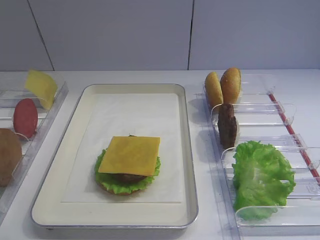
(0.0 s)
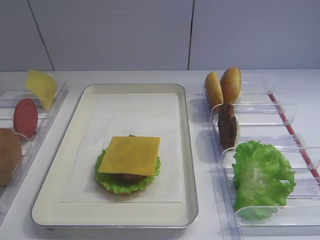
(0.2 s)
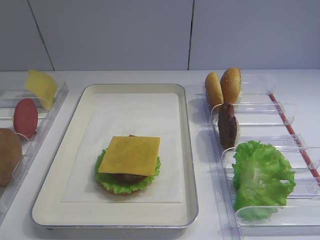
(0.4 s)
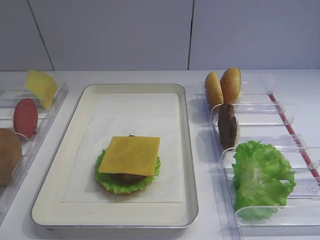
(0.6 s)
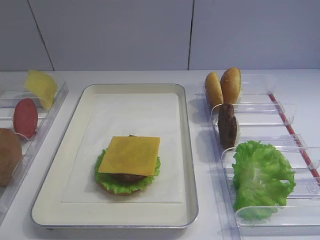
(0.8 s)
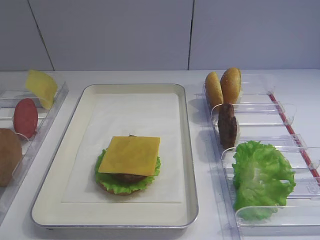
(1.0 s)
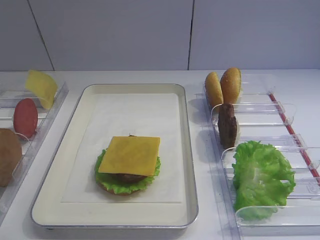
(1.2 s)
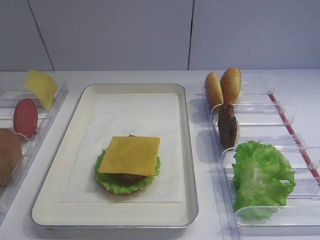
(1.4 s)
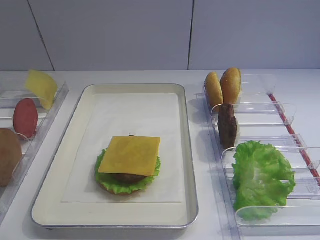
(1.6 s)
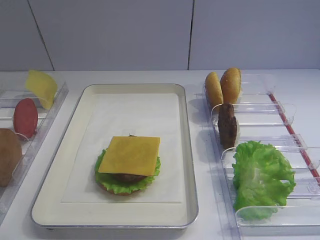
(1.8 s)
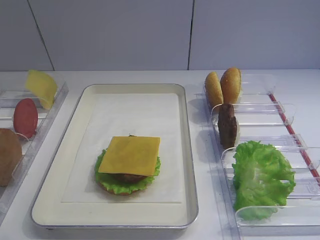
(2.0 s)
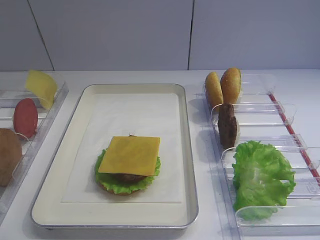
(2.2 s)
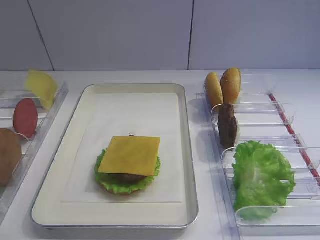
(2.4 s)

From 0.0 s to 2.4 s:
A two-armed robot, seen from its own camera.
From 0.0 s to 2.4 s: Neither gripper changes place.

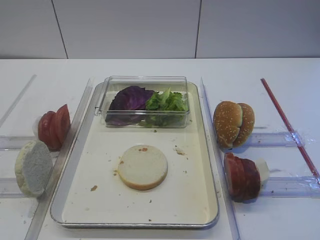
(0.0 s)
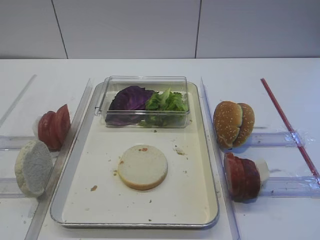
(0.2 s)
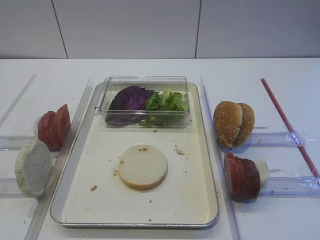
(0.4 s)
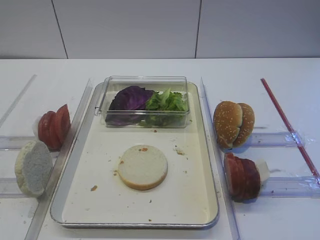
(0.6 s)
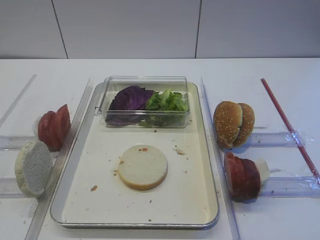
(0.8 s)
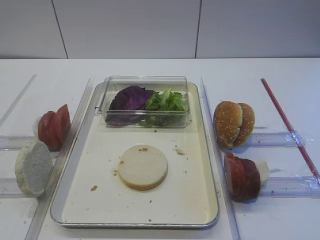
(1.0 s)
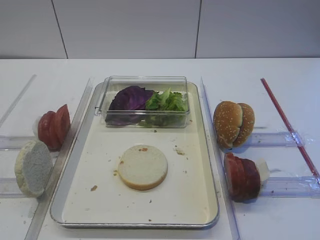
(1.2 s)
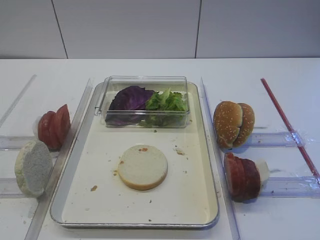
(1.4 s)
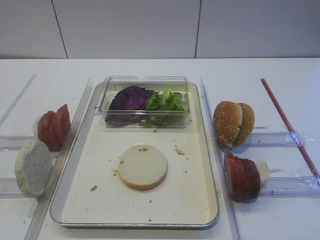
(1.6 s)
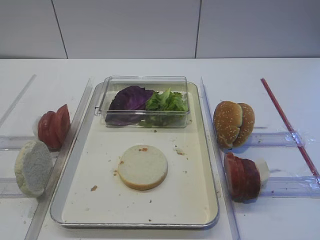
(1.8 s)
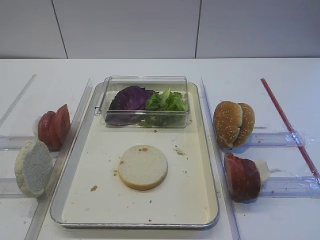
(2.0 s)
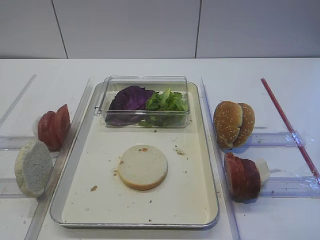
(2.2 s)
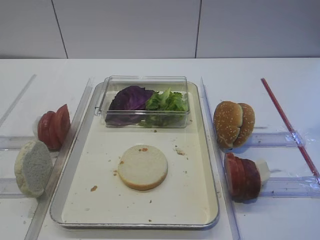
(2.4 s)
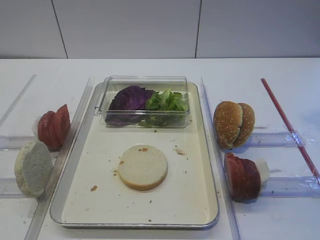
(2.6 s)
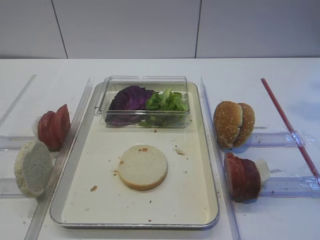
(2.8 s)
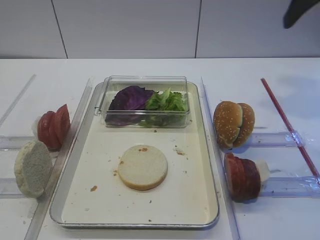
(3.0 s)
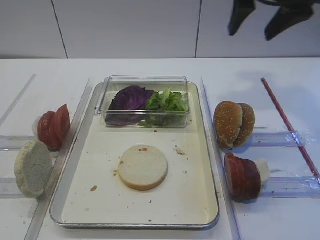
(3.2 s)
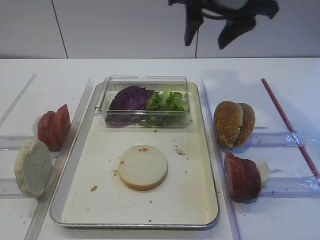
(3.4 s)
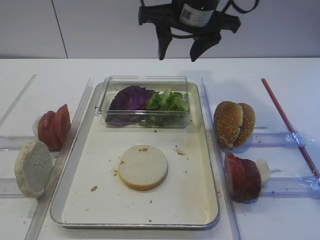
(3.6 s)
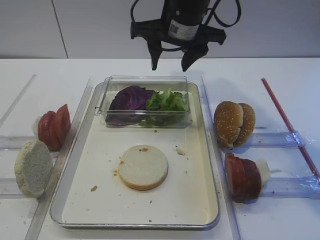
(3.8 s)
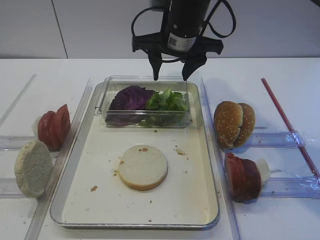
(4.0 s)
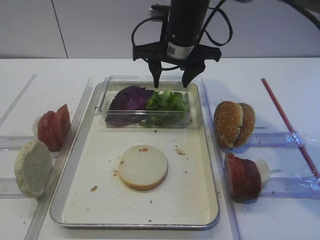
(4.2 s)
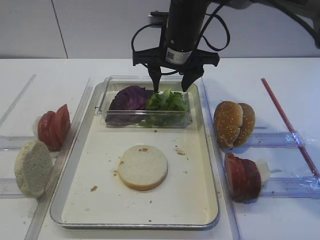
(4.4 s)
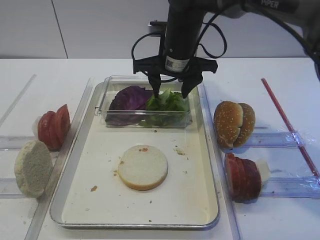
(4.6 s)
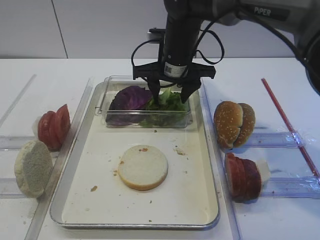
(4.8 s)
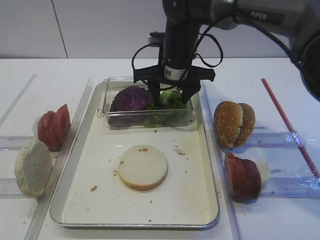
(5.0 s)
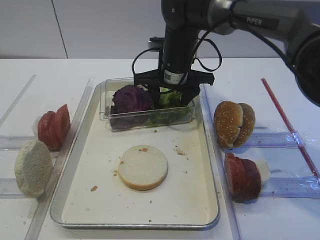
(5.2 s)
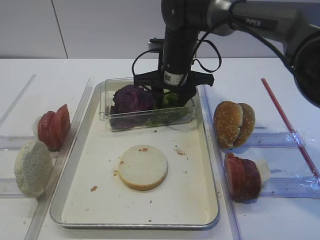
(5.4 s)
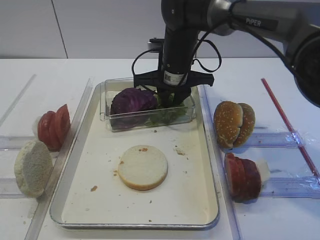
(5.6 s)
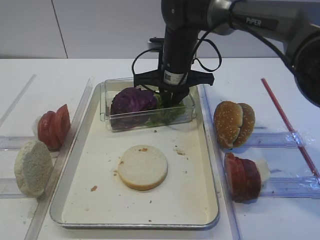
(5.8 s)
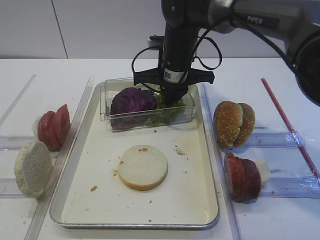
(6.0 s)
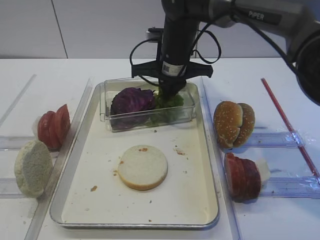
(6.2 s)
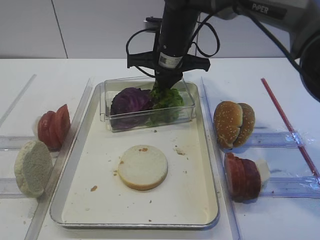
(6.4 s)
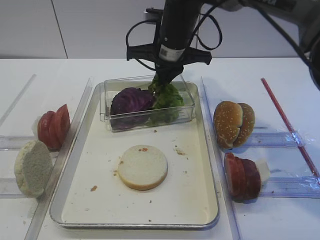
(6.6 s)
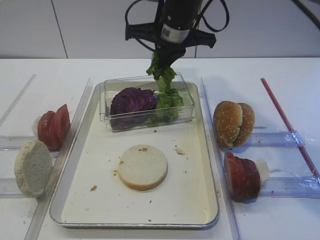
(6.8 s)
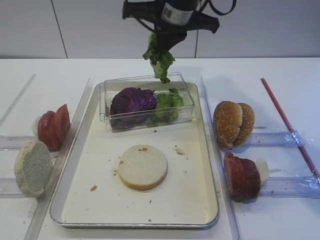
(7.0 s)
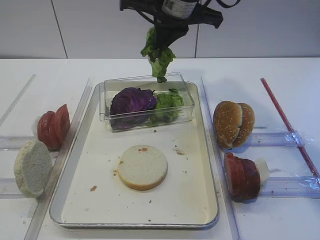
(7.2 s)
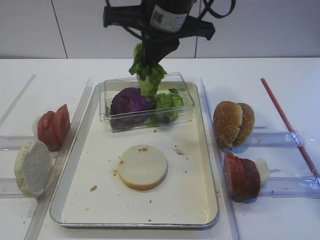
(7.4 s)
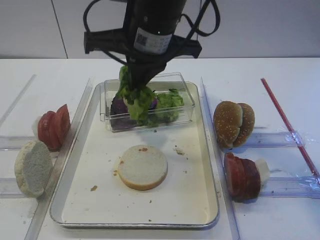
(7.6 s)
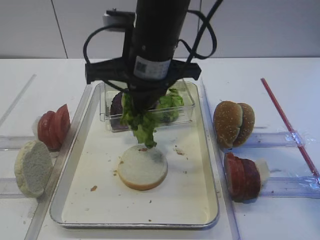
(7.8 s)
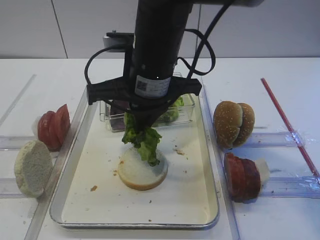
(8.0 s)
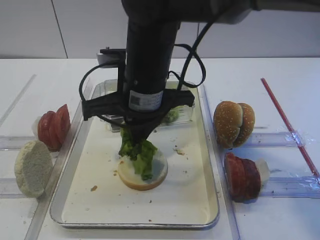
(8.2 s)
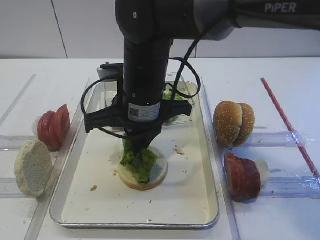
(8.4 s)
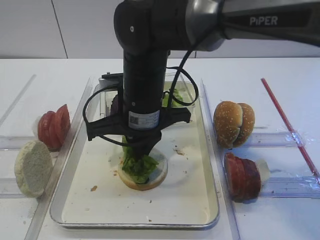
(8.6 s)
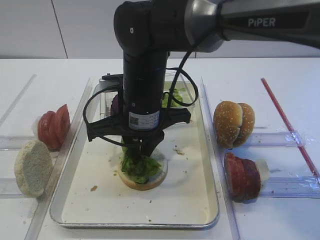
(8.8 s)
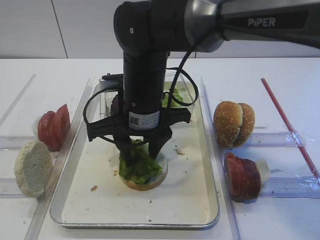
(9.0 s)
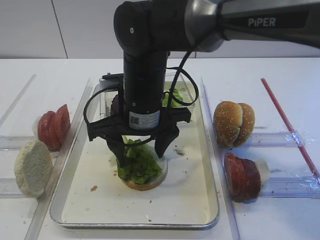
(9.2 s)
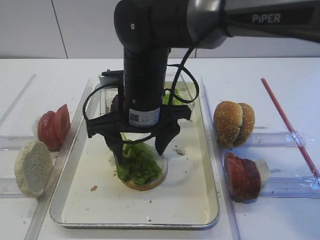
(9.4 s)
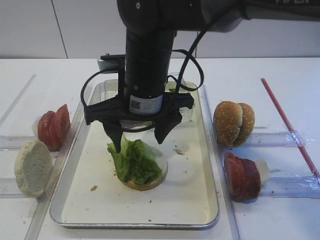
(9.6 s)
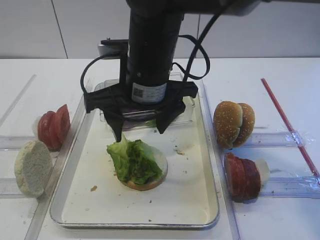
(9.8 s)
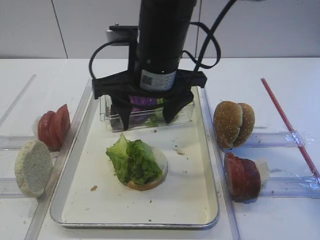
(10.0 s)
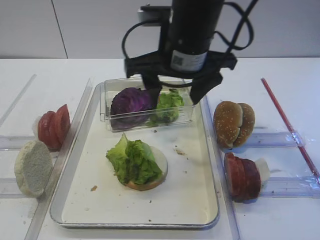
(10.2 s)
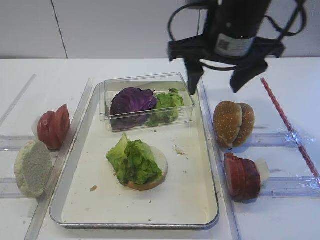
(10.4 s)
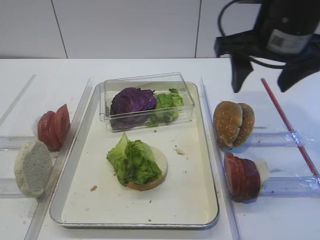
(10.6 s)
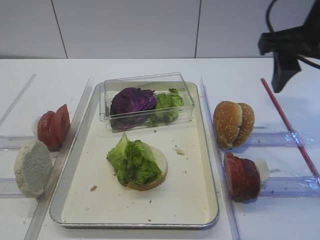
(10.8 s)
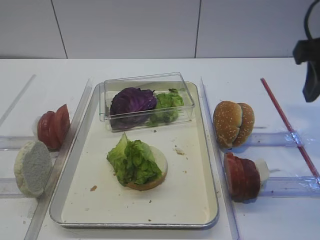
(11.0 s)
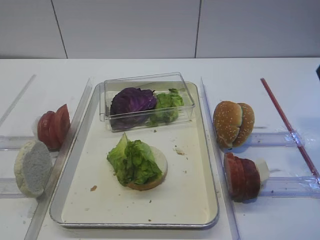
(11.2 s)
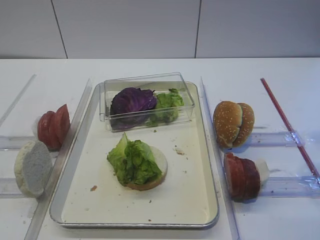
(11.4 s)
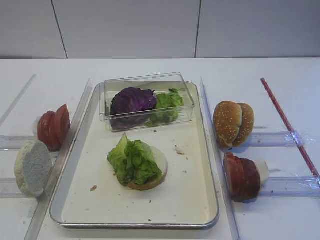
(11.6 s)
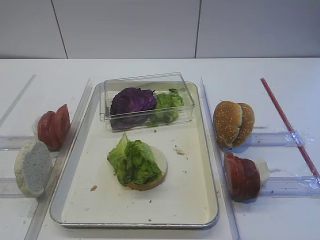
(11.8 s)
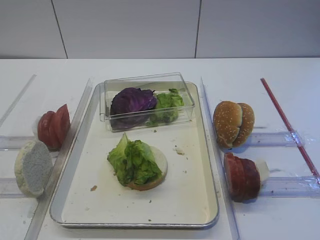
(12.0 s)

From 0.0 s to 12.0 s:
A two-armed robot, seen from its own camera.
Step, from 0.0 s to 6.8 s: Pick up the lettuce leaf with the right gripper.
Step, from 7.0 s to 10.0 s: Place the lettuce leaf on the bread slice with the right gripper.
From 1.6 s to 3.0 s: The right gripper goes about 25 cm forward, and opens up.
From 3.0 s to 4.4 s: The right gripper shifts approximately 25 cm to the left, downward and forward.
From 4.4 s to 6.0 s: The right gripper closes up.
From 6.0 s to 7.6 s: The right gripper is displaced upward and backward by roughly 15 cm.
From 7.6 s to 9.0 s: The right gripper goes roughly 10 cm downward, and opens up.
From 9.0 s to 10.4 s: The right gripper moves to the right and upward, some 15 cm, and opens.
From 10.4 s to 12.0 s: The right gripper moves backward and to the right, roughly 30 cm.

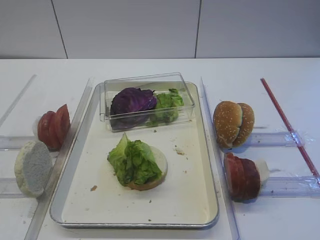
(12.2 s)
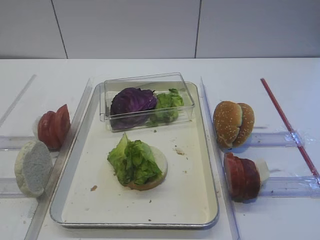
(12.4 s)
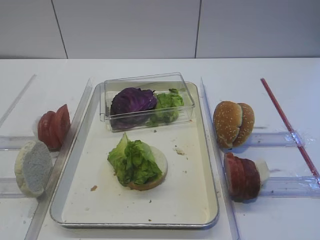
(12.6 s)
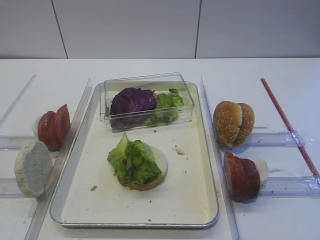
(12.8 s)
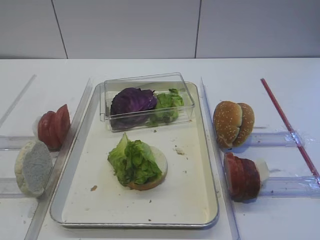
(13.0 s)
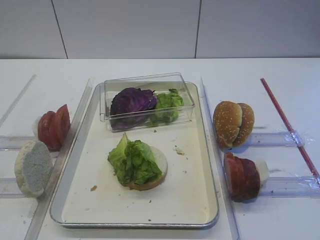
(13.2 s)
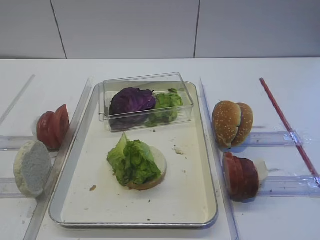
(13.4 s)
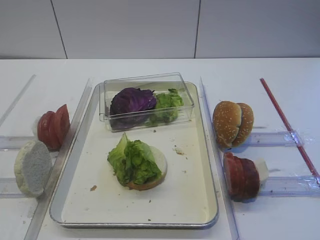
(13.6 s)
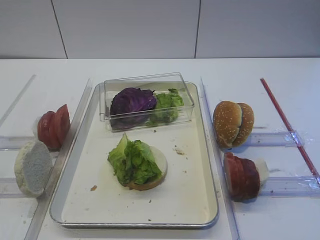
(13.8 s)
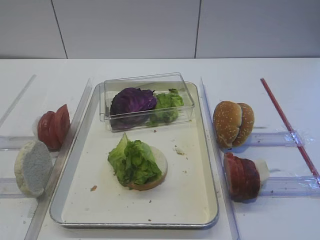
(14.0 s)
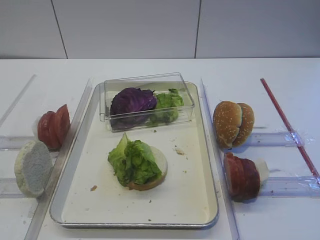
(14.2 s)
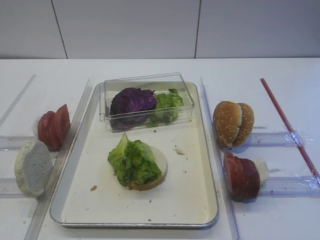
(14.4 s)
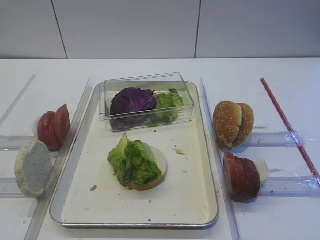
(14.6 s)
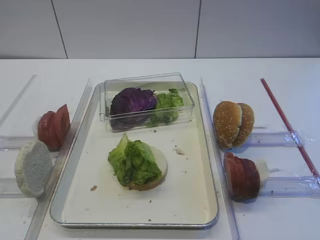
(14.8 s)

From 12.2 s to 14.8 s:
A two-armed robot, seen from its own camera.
From 13.4 s to 14.8 s: There are only small adjustments of the grippers.

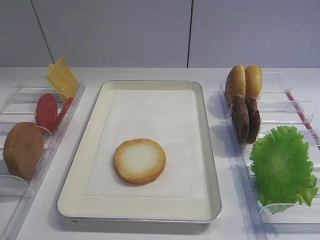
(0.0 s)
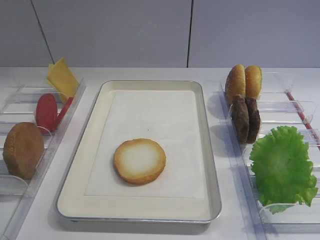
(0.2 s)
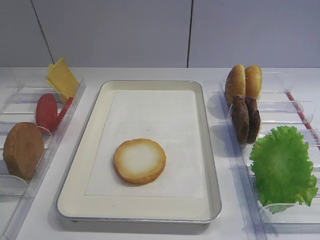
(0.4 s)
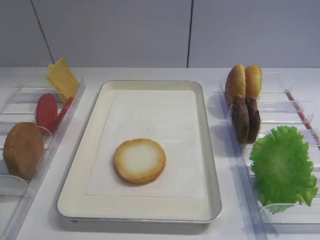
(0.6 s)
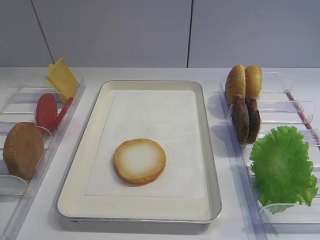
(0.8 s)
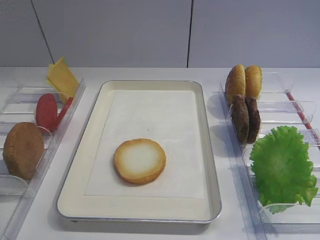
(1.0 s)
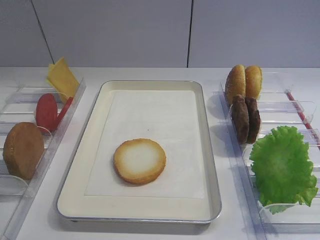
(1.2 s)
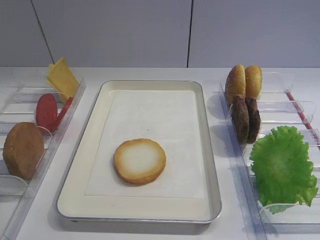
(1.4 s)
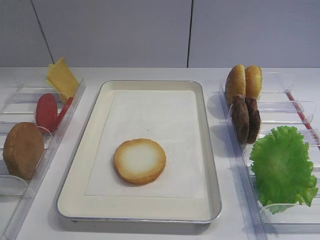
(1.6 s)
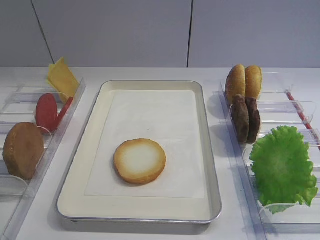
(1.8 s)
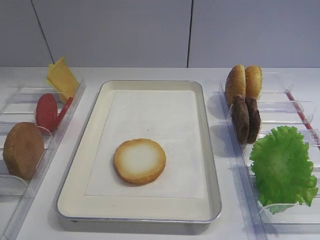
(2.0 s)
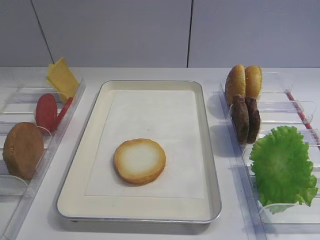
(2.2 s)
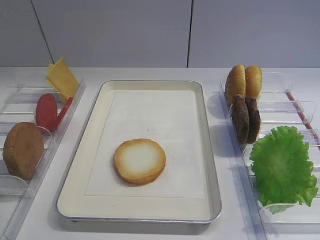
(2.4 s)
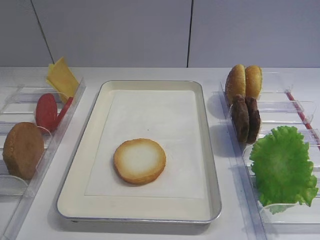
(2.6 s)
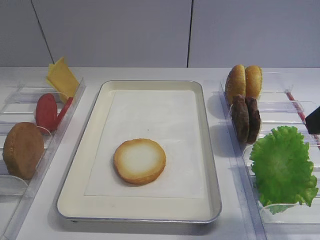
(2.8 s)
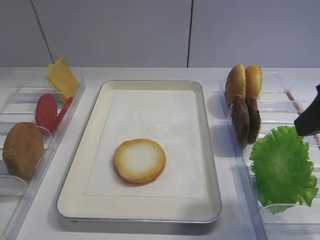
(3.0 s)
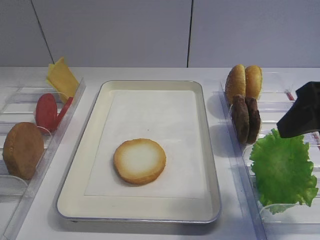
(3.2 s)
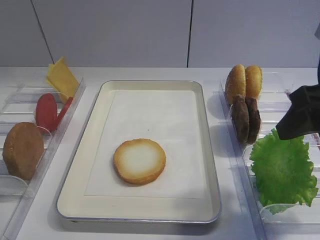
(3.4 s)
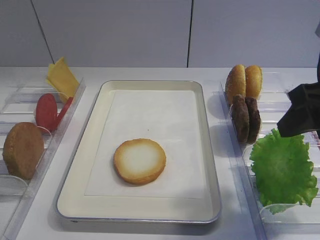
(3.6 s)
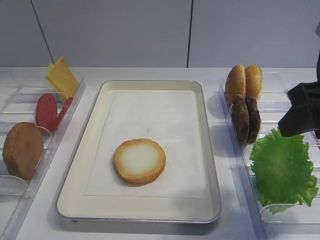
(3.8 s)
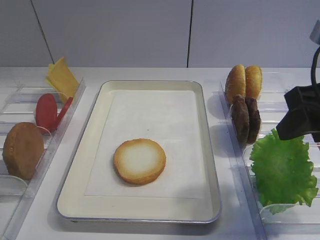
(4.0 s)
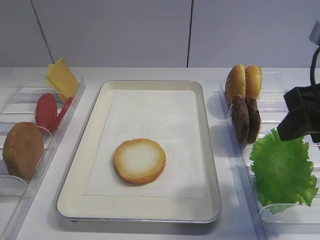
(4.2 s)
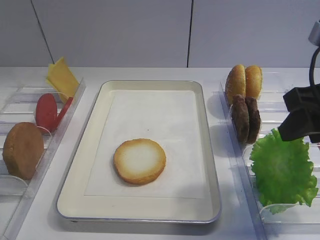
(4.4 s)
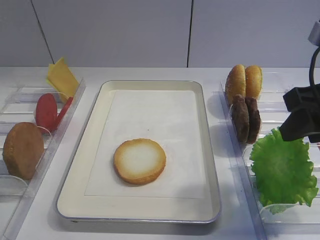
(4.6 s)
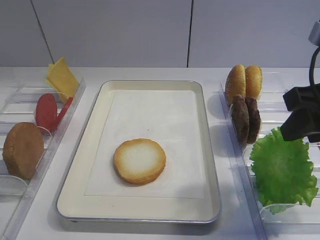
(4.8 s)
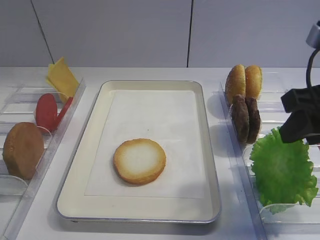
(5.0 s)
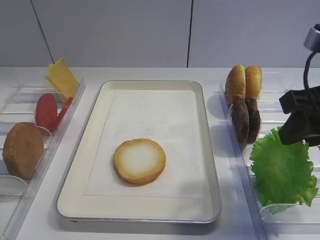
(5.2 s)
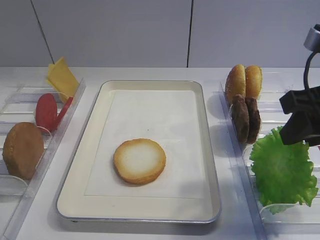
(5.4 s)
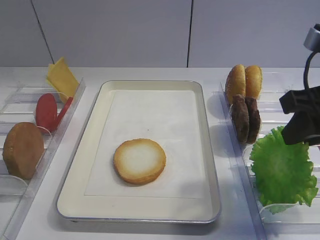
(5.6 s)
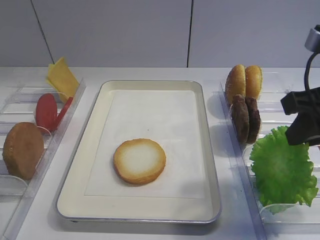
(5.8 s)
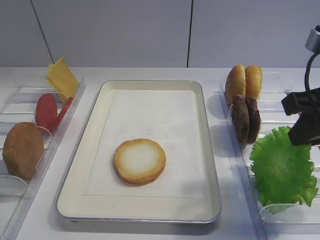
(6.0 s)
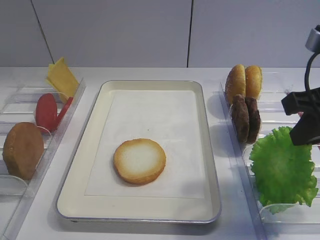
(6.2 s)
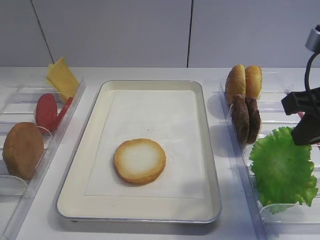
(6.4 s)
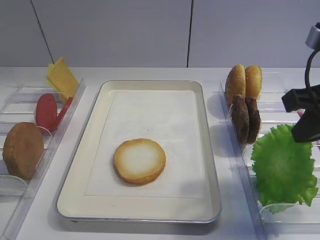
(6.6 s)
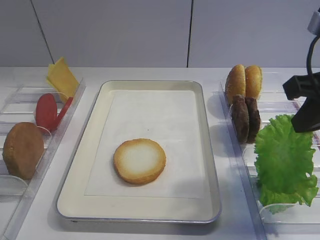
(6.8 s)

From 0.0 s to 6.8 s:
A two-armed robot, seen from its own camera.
From 1.4 s to 2.8 s: The right gripper moves forward, roughly 15 cm, and opens.
From 2.8 s to 4.0 s: The right gripper moves about 5 cm.
From 4.0 s to 5.4 s: Both grippers stay about where they are.
From 5.4 s to 6.8 s: The right gripper closes its fingers.
